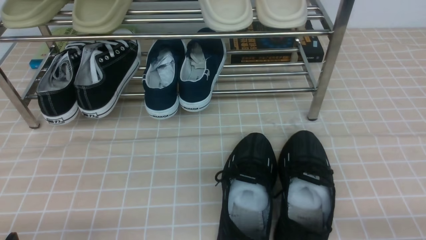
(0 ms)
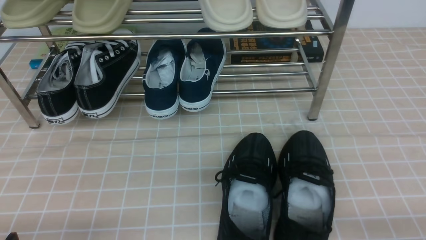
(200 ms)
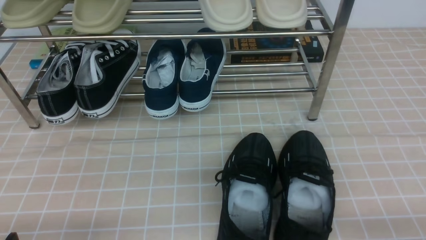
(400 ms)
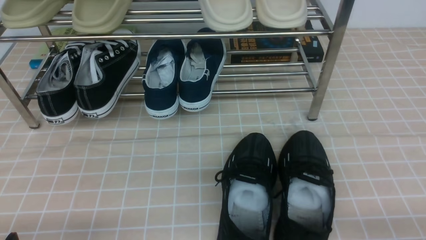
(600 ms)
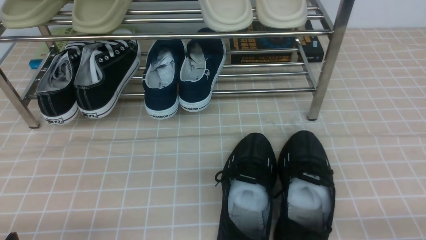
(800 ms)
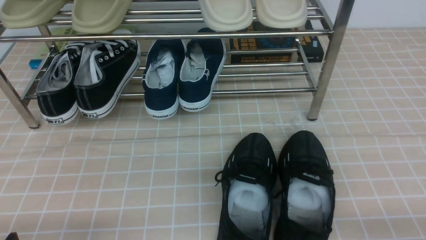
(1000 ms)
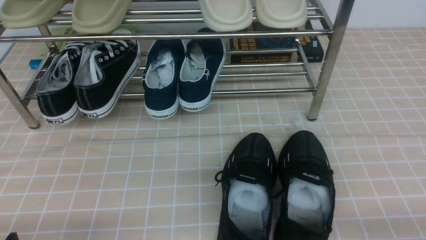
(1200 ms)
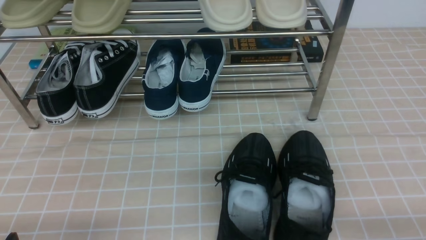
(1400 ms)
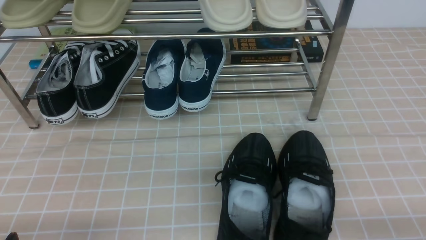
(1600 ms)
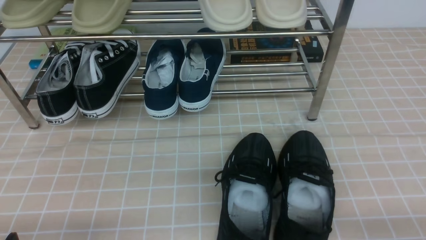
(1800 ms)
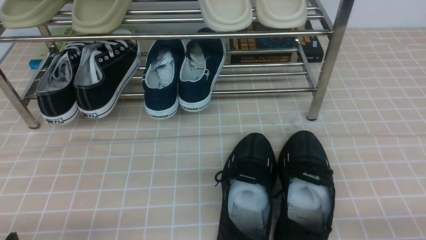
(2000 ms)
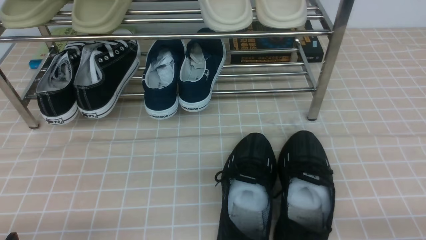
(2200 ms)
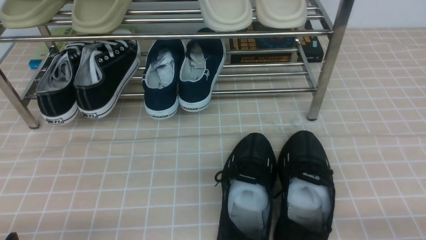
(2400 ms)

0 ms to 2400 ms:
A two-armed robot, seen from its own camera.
0 ms to 2400 ms: Both grippers stay put.
